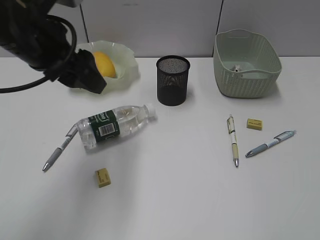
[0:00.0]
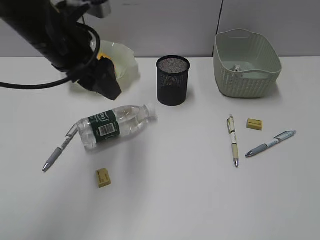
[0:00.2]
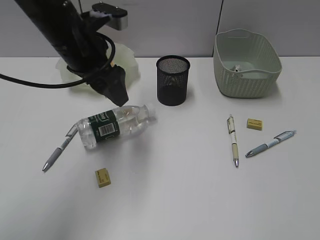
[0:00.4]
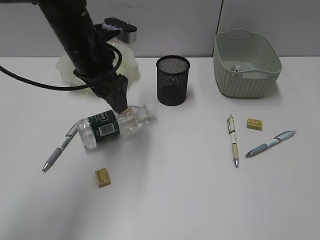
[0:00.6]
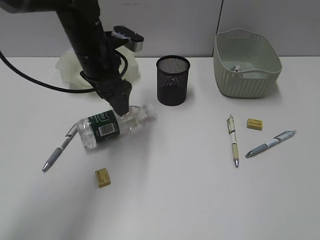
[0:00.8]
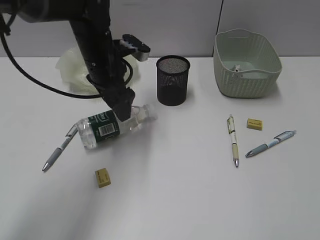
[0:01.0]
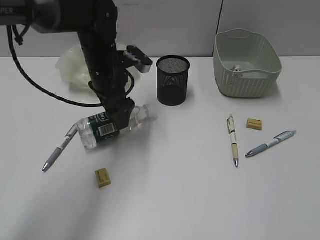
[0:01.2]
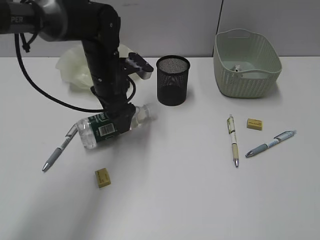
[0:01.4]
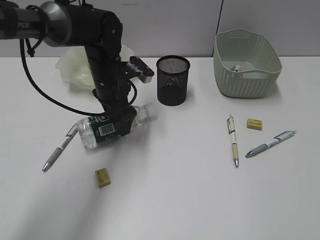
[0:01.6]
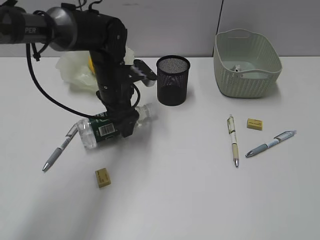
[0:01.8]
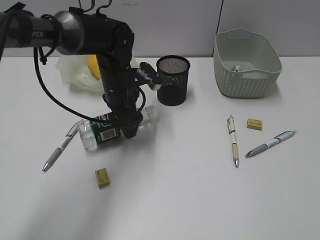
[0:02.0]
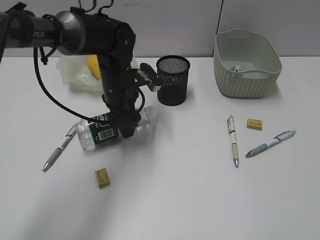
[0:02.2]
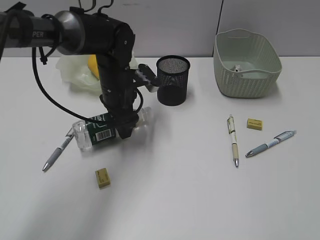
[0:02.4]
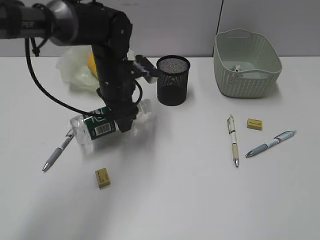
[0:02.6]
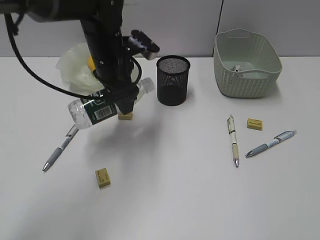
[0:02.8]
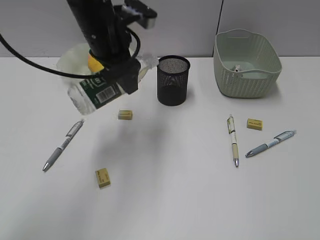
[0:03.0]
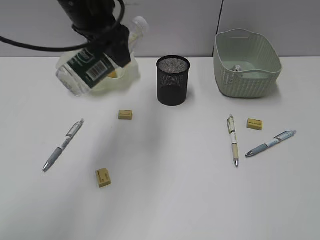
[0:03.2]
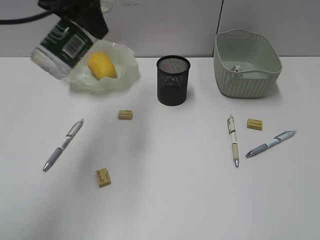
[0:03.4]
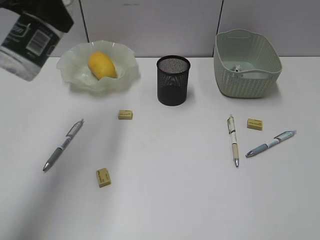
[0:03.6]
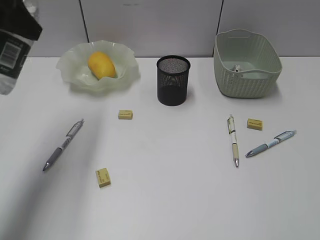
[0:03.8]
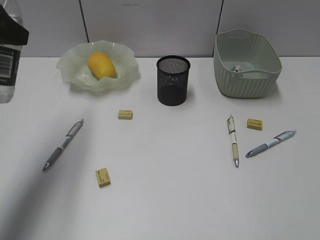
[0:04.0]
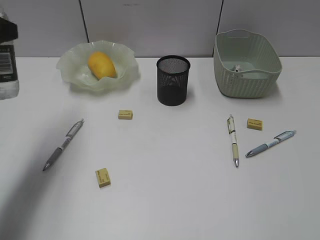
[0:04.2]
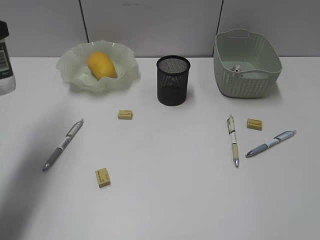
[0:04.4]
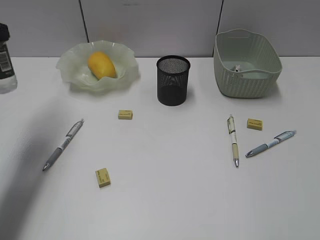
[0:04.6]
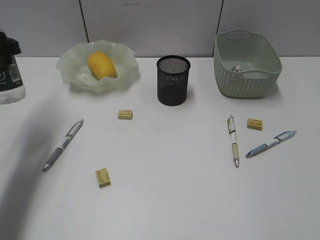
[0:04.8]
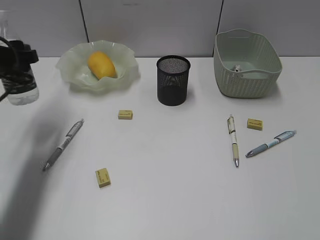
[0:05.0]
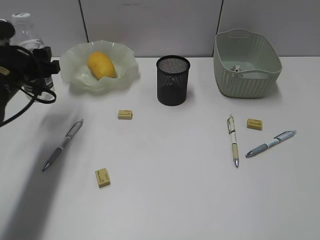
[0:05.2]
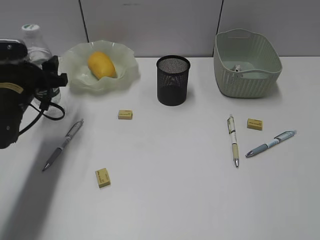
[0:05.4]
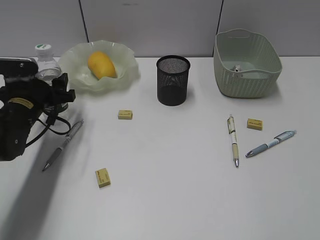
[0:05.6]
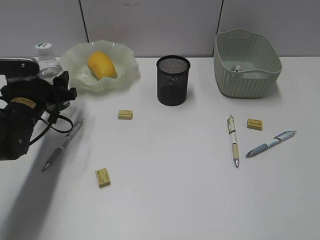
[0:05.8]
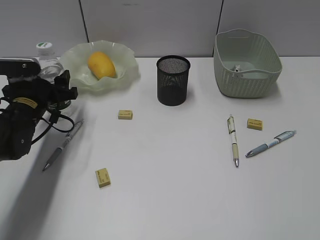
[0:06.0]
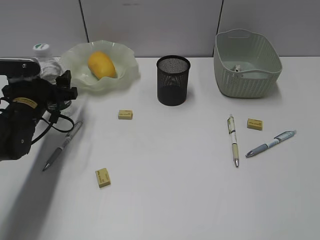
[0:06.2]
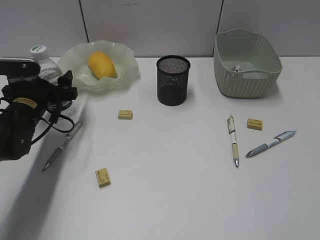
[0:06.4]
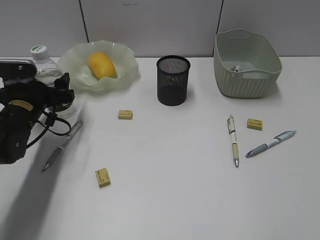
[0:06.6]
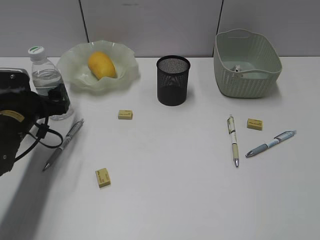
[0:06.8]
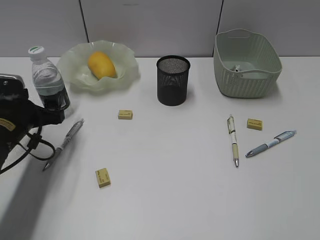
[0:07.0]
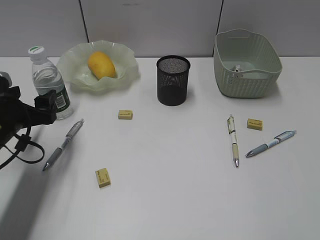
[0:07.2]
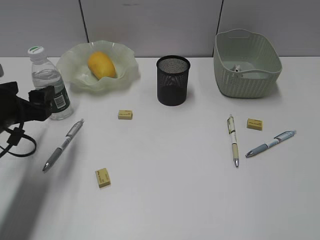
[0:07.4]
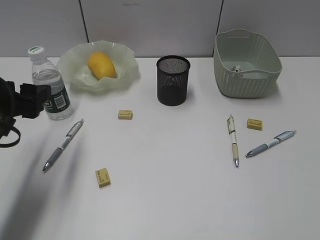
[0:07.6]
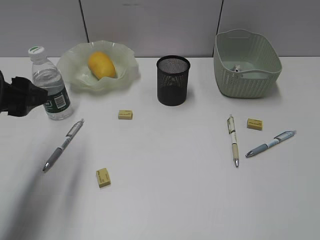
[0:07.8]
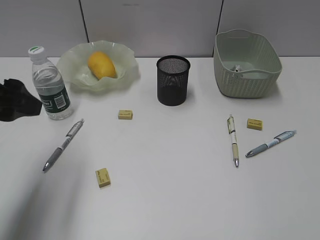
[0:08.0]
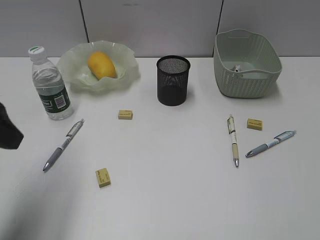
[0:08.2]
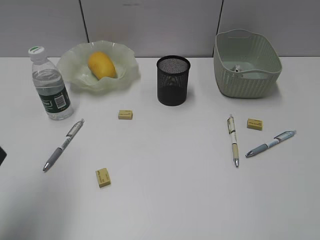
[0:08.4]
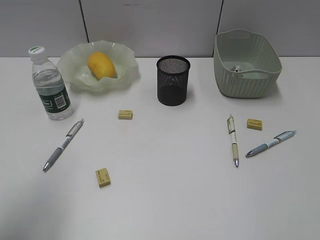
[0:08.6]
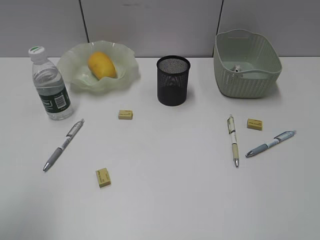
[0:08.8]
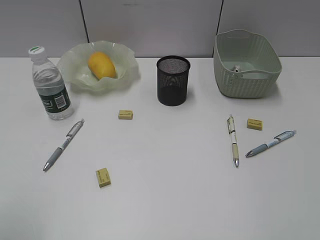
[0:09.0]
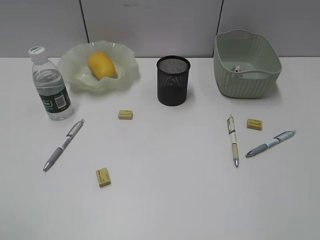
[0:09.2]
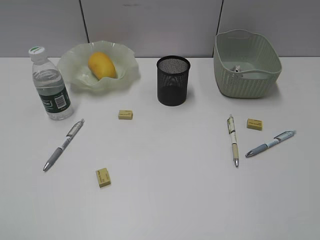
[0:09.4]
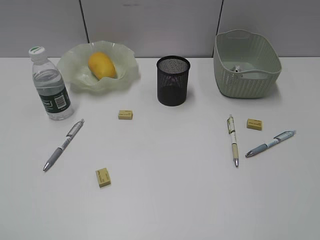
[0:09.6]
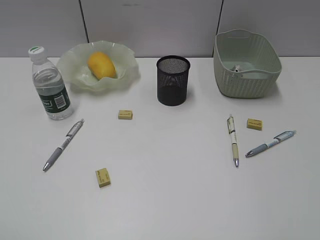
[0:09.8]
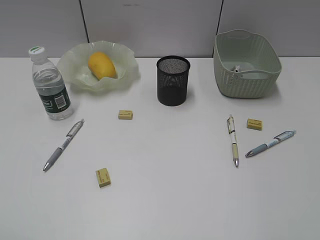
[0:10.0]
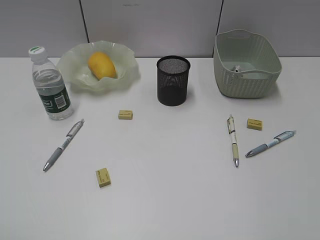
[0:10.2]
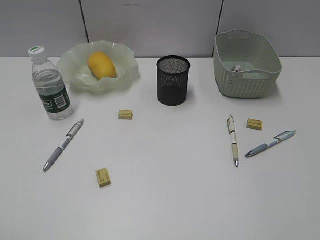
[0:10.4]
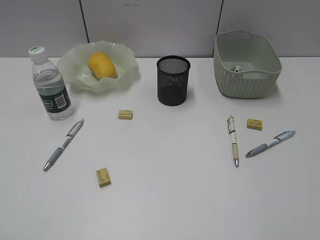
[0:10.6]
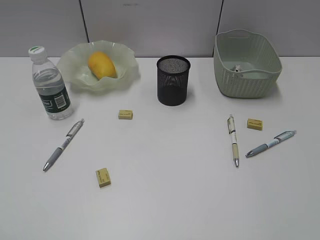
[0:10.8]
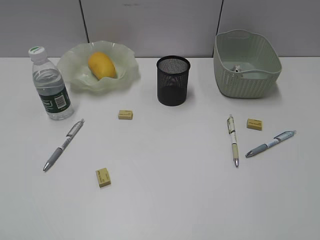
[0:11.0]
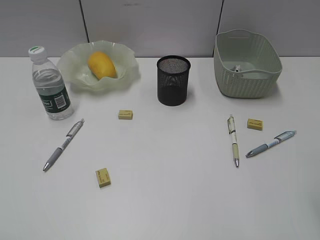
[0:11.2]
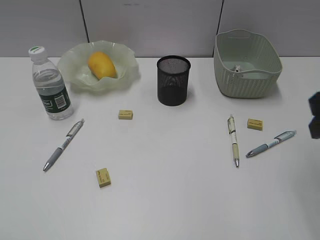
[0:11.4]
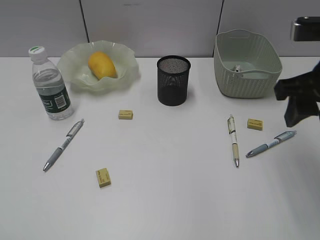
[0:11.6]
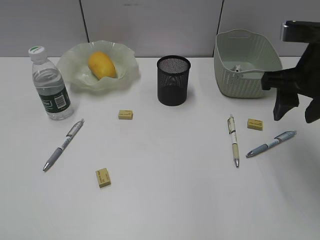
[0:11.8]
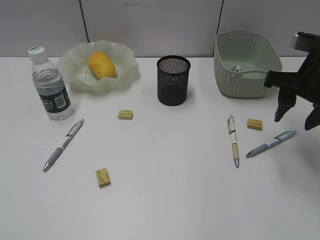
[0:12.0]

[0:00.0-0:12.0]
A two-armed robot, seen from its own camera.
Step, 0:00.0 to 0:02.0: Grasp the bottle with left gripper.
Step, 0:02.2 to 0:06.8: Stand the bottle with left gripper.
0:00.0 to 0:01.6: The left gripper shifts some 20 cm downward, forward and to the right.
0:01.6 to 0:03.0: The left gripper travels upward by approximately 10 cm.
0:03.0 to 0:04.4: The left gripper is displaced to the left and backward by about 25 cm.
0:04.4 to 0:06.0: The left gripper heads downward and forward, covering about 20 cm.
0:06.0 to 0:07.6: The left gripper heads backward and upward, covering roughly 15 cm.
0:07.6 to 0:09.0: The left gripper travels backward and upward by some 20 cm.
0:10.4 to 0:12.0: The right gripper moves forward, roughly 30 cm.

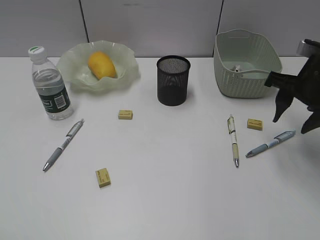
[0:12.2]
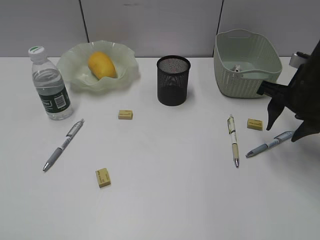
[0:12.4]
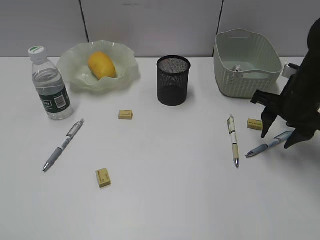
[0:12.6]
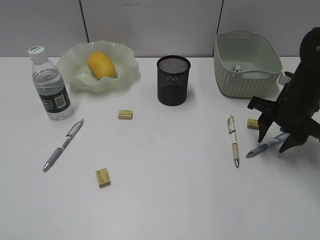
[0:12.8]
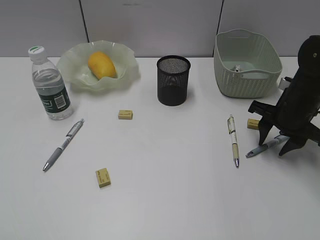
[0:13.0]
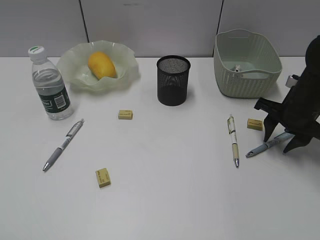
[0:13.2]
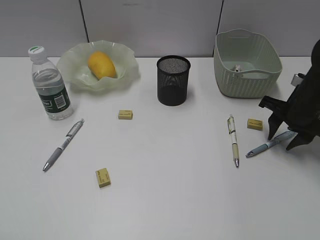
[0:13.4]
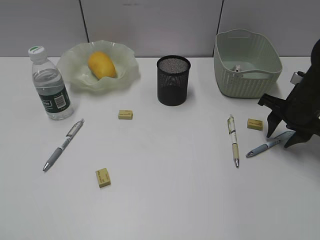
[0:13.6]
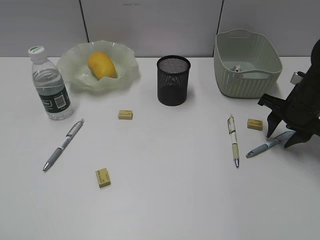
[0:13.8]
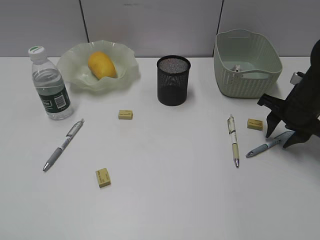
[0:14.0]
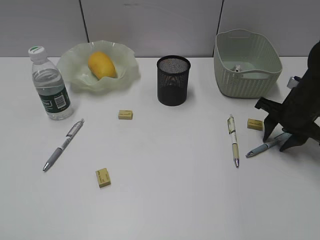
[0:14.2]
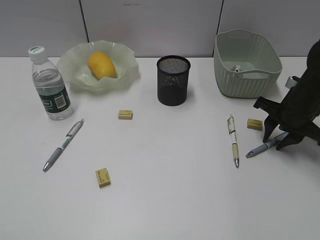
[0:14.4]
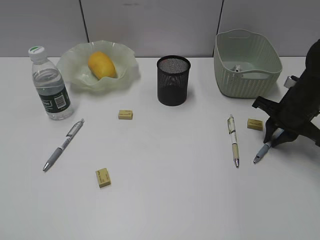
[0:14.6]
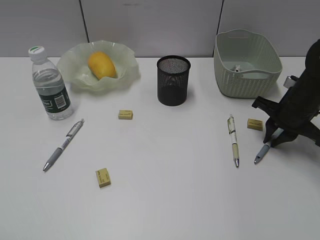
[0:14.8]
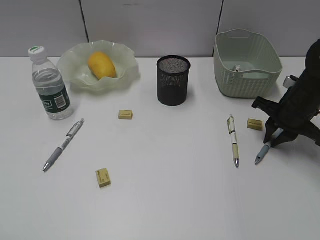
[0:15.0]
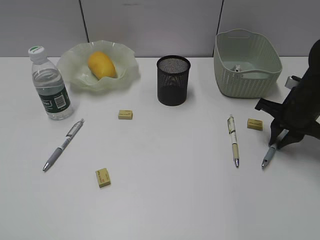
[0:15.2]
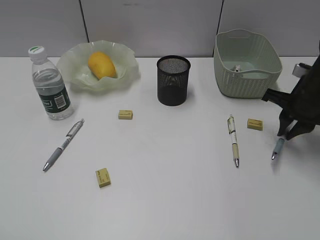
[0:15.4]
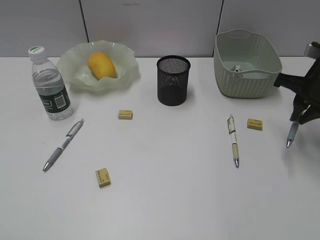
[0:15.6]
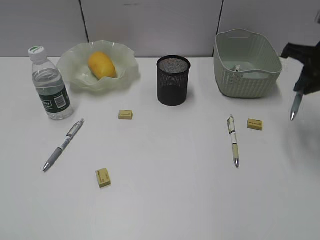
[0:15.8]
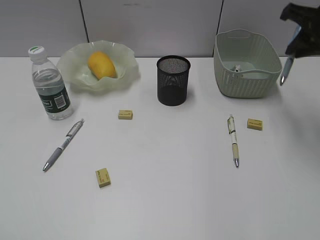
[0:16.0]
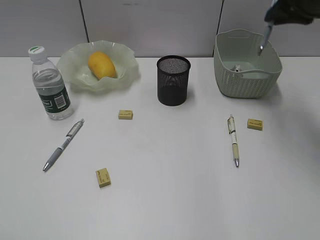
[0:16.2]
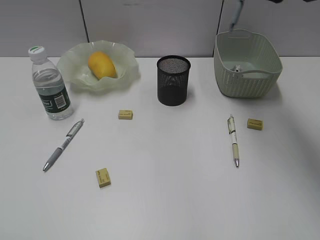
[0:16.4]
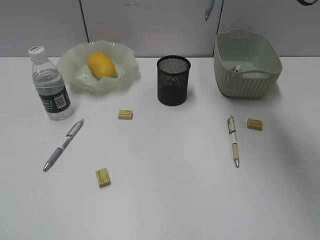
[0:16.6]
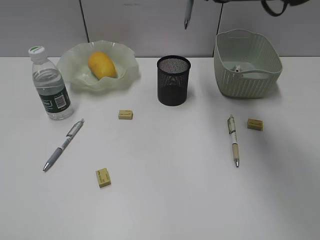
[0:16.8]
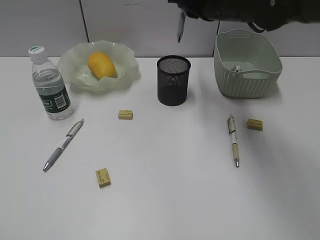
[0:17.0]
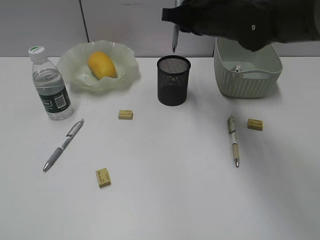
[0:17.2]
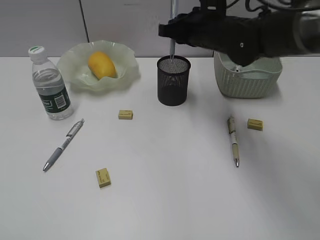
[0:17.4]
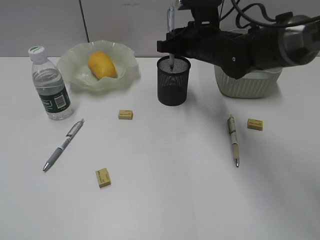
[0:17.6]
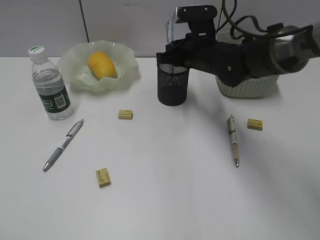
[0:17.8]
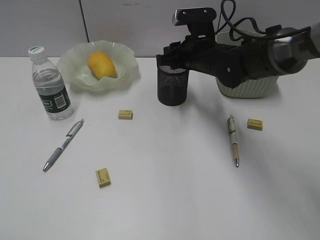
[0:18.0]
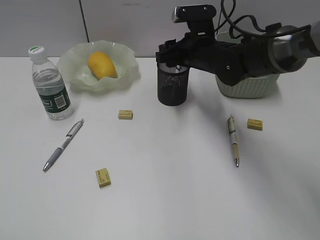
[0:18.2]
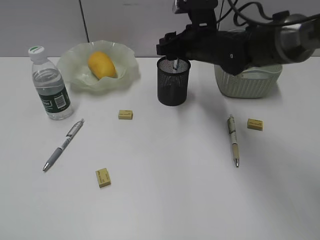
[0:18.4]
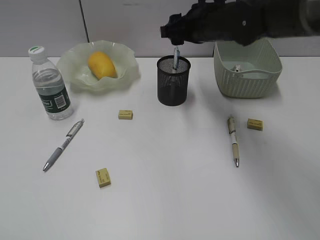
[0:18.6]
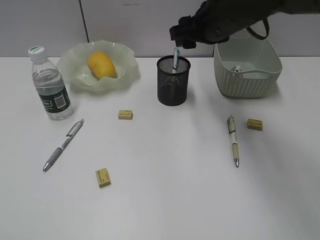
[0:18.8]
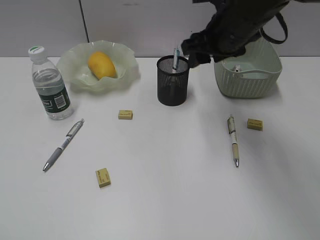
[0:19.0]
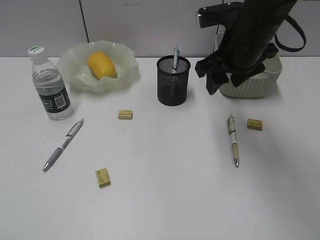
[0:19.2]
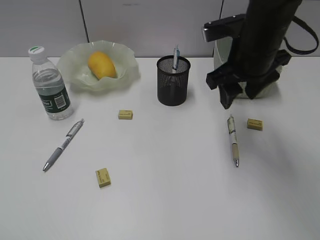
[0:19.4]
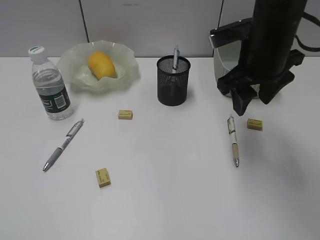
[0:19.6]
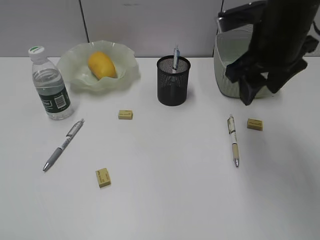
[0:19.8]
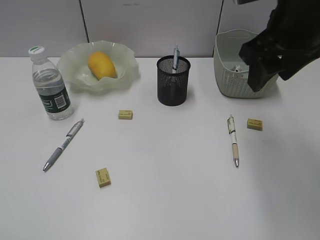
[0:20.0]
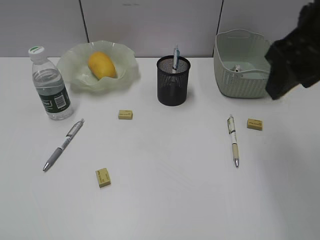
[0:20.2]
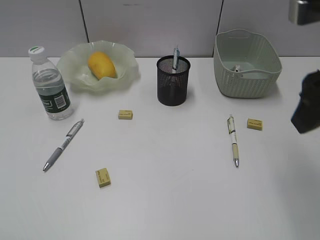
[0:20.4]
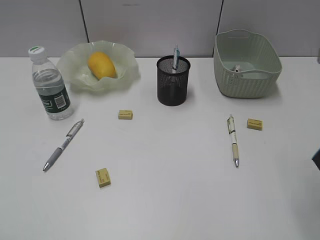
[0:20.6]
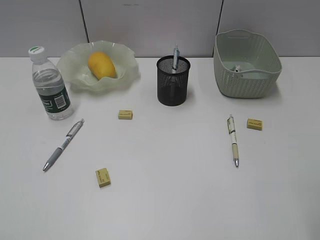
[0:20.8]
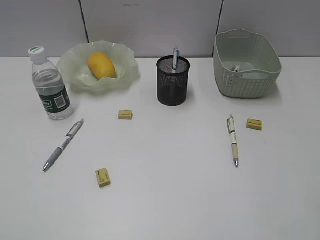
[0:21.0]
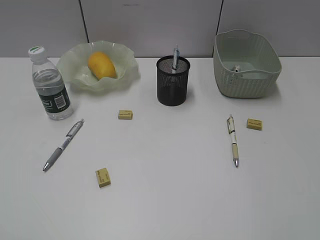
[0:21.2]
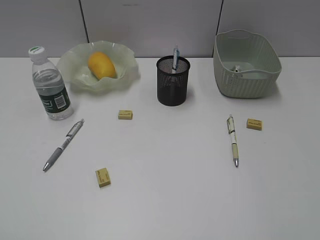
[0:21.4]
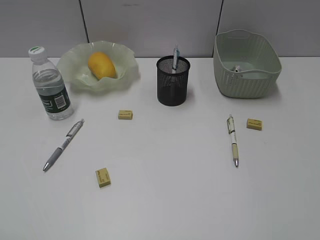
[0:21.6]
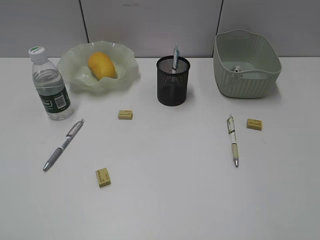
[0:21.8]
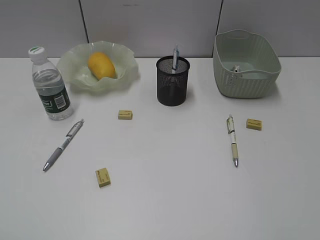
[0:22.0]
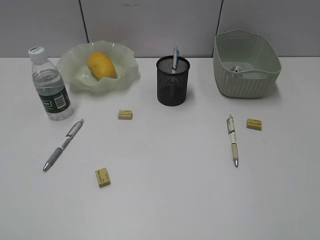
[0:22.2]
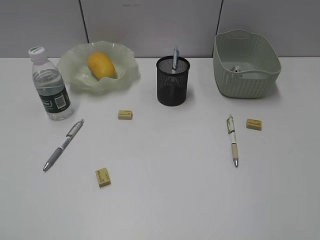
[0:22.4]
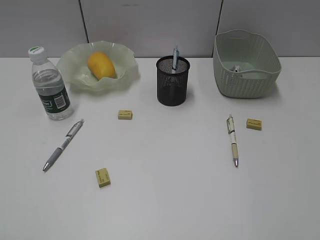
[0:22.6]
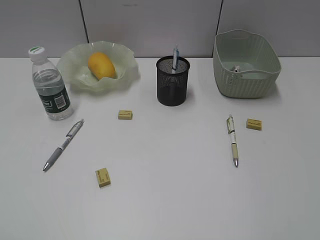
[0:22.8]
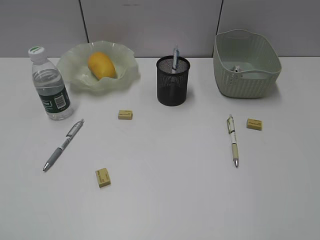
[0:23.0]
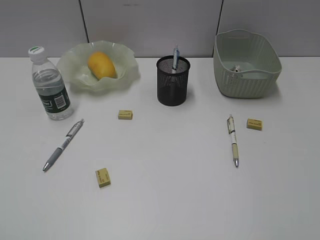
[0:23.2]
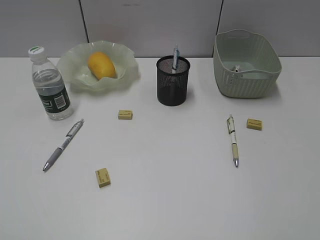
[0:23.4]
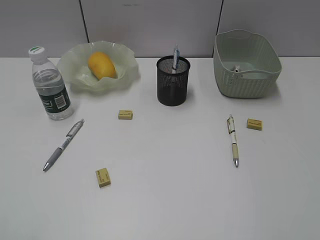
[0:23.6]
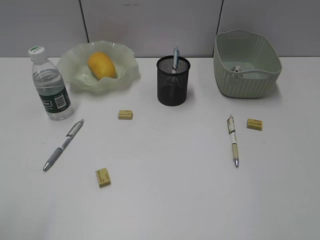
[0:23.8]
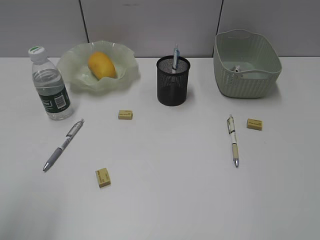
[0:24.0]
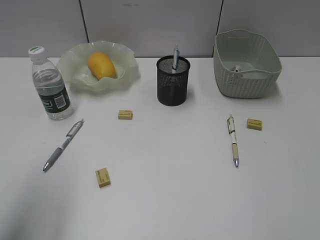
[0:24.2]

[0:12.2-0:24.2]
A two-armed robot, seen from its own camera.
Step, 0:12.2 to 0:14.8: Grasp the blue pen with right gripper.
Step, 0:15.0 to 0:18.0: Place the blue pen in pen holder with right gripper.
0:12.2 to 0:13.8: The right gripper moves downward, some 10 cm.
0:13.8 to 0:15.2: The right gripper closes up.
0:15.2 to 0:16.6: The right gripper goes some 25 cm upward and to the left.
0:16.6 to 0:18.2: The right gripper heads downward, covering approximately 20 cm, and opens.
0:18.2 to 0:19.8: The right gripper heads upward, backward and to the right, covering about 15 cm.
0:19.8 to 0:21.2: The right gripper shifts roughly 30 cm backward and to the right.
0:22.6 to 0:24.2: The left gripper is displaced forward by approximately 15 cm.
